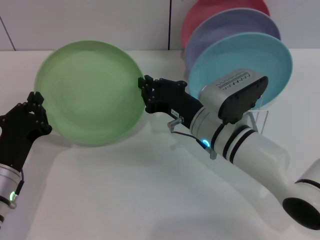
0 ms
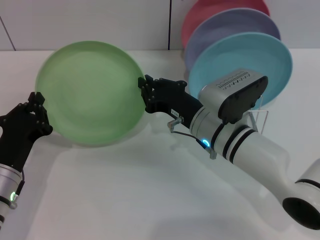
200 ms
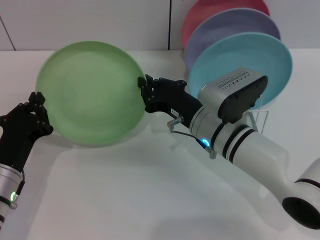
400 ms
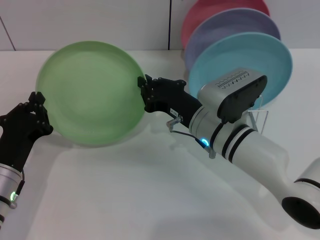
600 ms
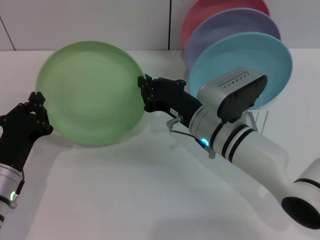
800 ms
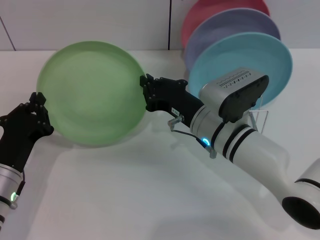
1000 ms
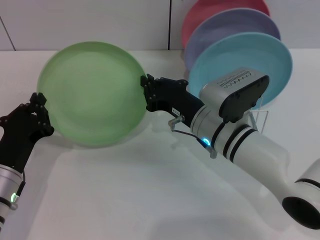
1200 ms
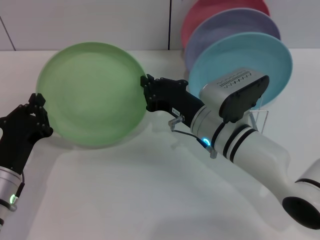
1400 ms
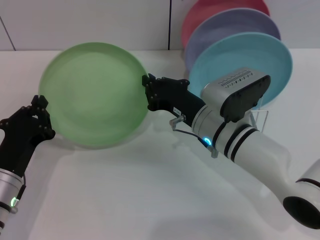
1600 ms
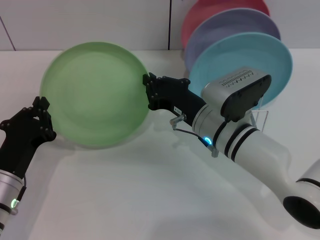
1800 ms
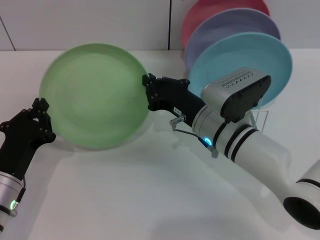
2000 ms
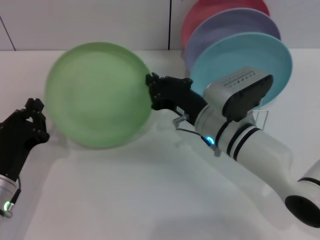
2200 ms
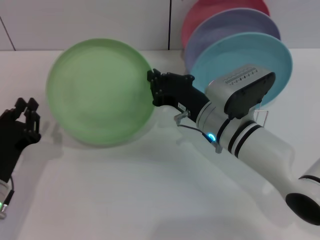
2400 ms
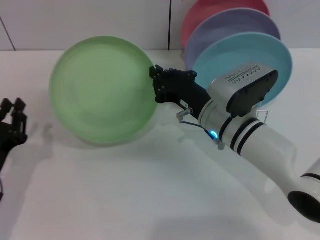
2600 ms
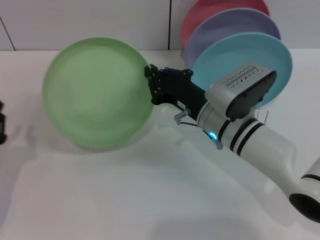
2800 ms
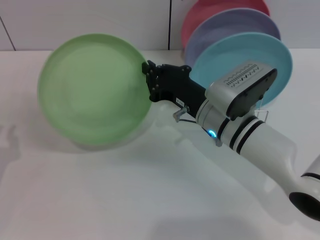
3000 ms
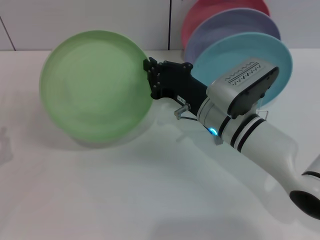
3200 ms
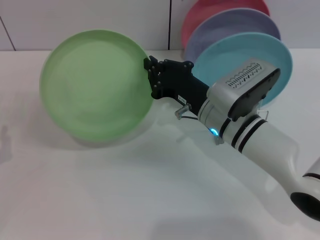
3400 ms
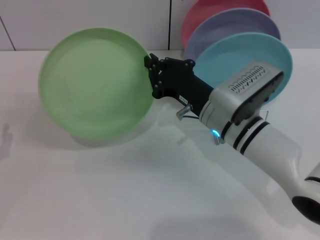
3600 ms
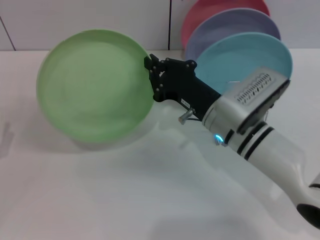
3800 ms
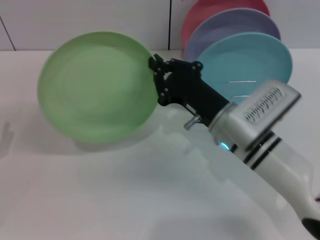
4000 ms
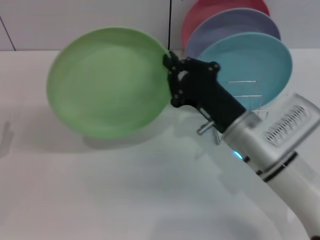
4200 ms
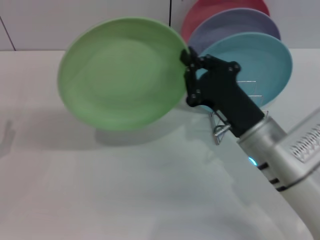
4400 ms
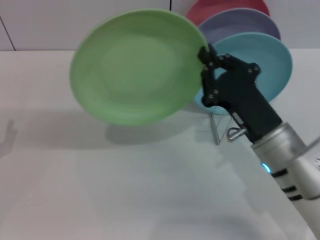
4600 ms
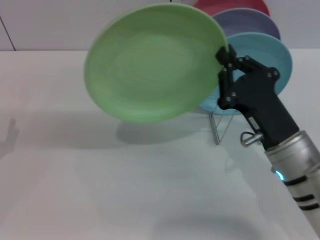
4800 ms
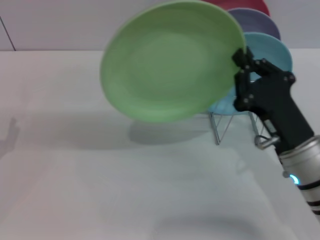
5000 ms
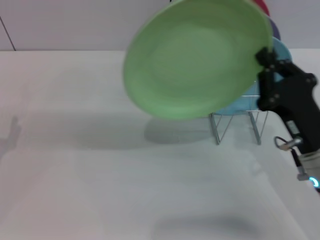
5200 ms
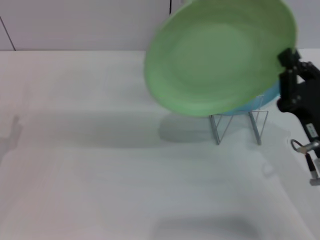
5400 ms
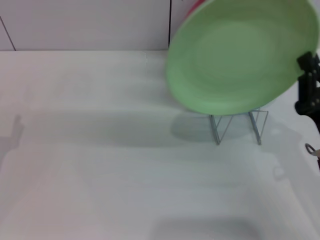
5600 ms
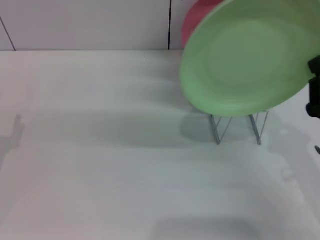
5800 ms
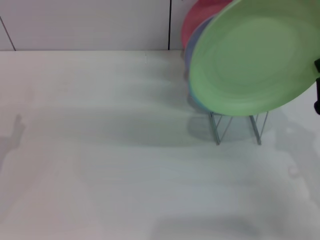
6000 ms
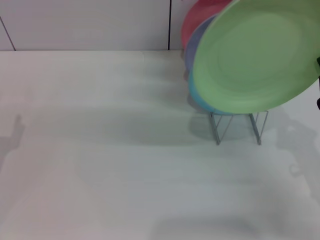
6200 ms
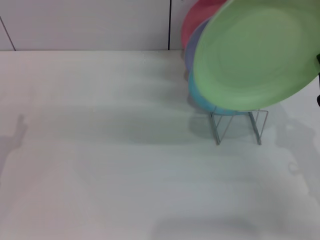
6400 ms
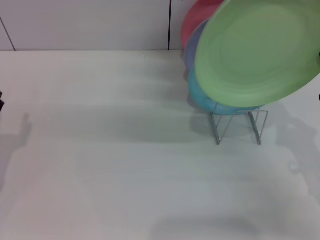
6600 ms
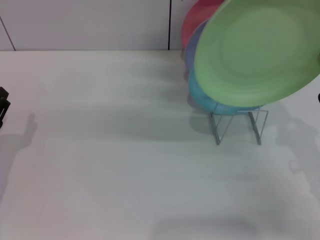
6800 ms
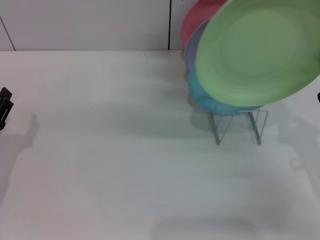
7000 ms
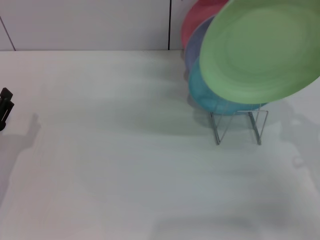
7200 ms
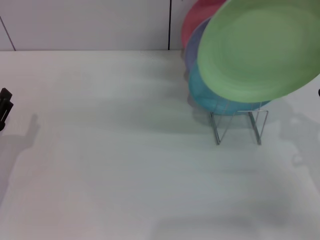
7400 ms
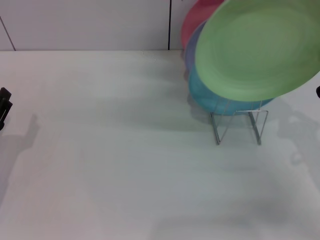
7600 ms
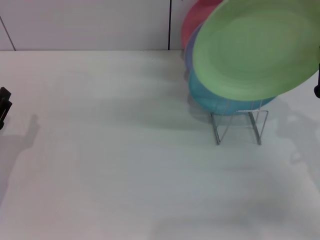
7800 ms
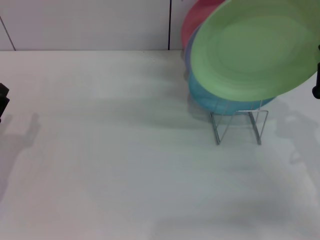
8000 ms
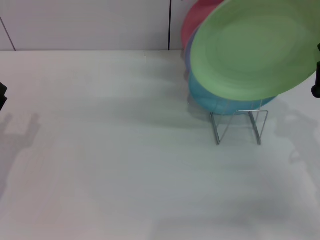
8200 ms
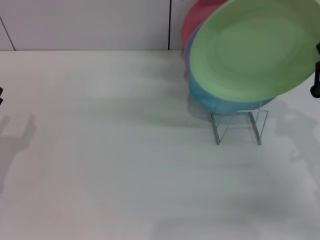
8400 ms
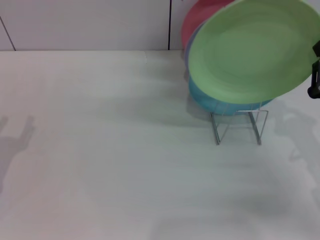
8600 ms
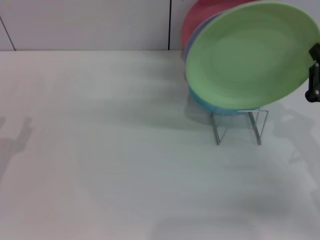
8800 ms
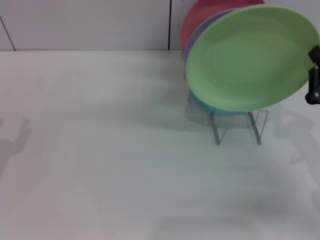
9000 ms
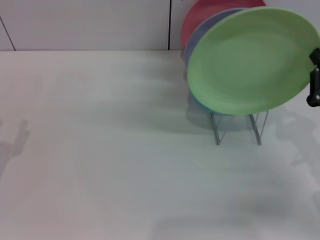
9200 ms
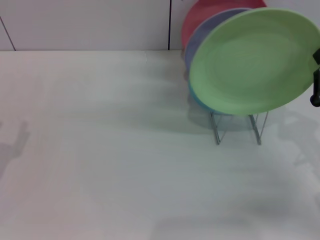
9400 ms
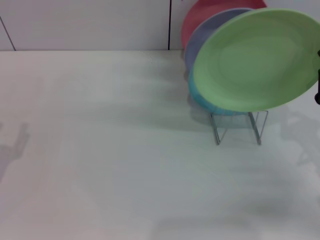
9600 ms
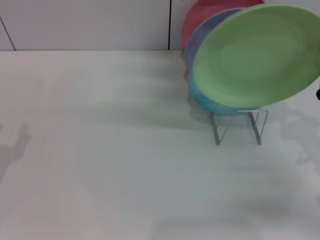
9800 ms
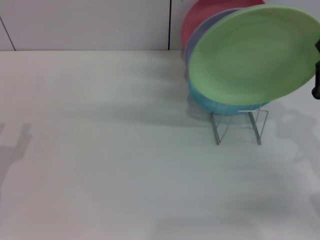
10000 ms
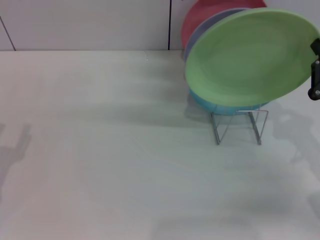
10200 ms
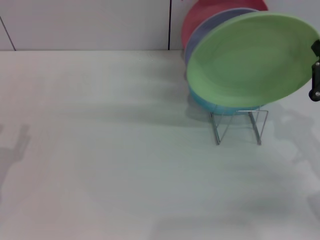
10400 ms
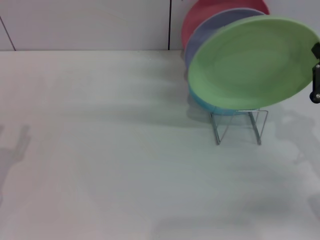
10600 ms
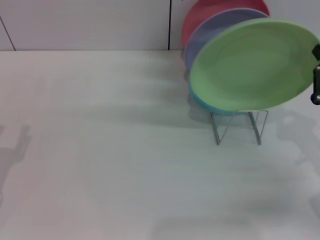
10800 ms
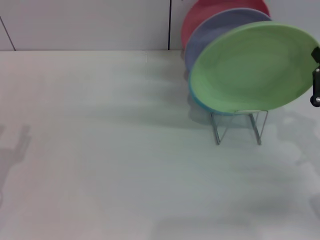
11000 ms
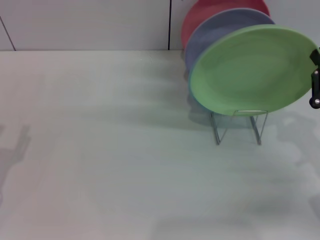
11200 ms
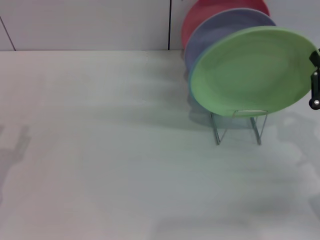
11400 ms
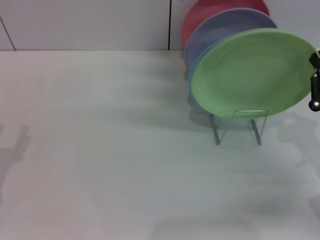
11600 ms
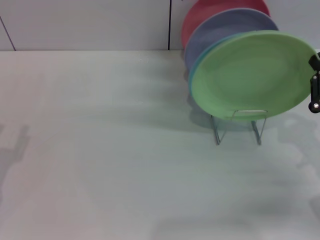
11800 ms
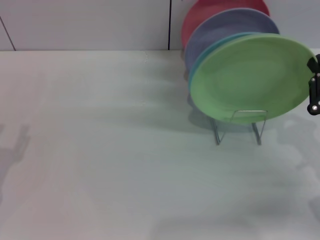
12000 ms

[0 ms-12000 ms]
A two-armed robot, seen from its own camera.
Task of the whole recording: Grip the plate with one hand, pass it to the other, then set it on the shelf.
Step, 0 ms to 2400 ms: Pass the plate from the left gripper to the right gripper.
0 ms to 1600 ms: Both grippers stay put.
1600 ms to 3000 ms: The left gripper travels to the left by some 5 cm.
3000 ms to 4400 ms: The left gripper opens. The right gripper goes roughly 5 cm backward.
4400 ms to 6000 ms: The right gripper travels to the right and backward by some 15 cm.
6000 ms to 7600 ms: The grippers move only a little.
7600 ms to 9000 ms: The grippers move only a little.
9000 ms to 12000 ms: The grippers make only small movements.

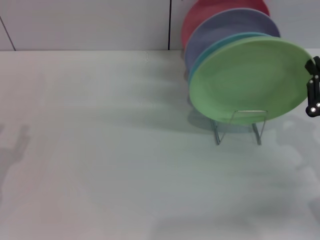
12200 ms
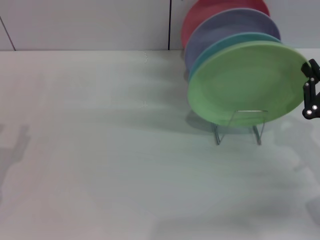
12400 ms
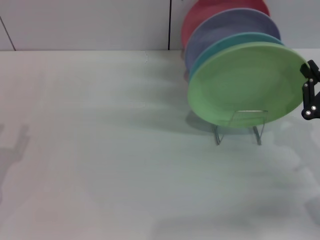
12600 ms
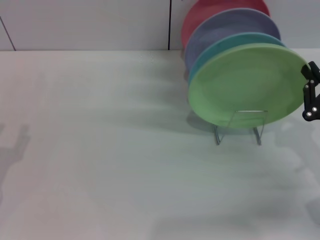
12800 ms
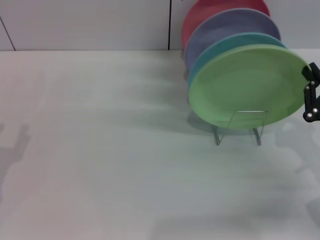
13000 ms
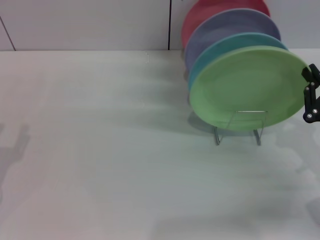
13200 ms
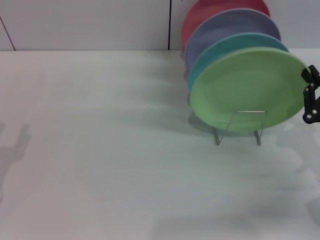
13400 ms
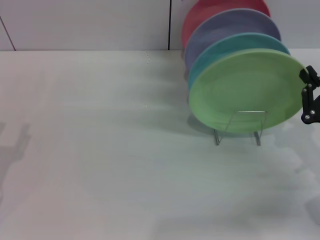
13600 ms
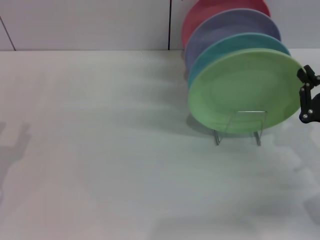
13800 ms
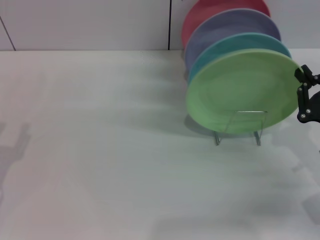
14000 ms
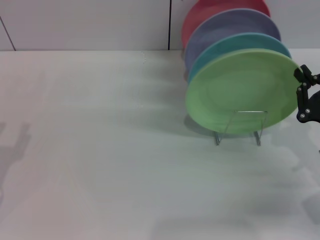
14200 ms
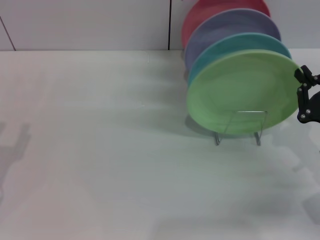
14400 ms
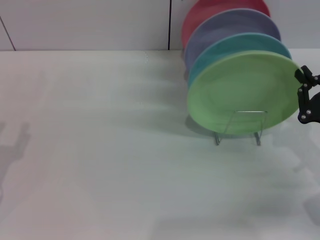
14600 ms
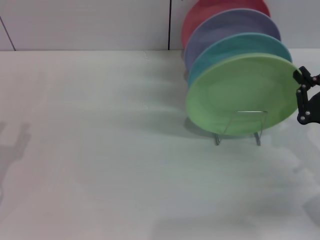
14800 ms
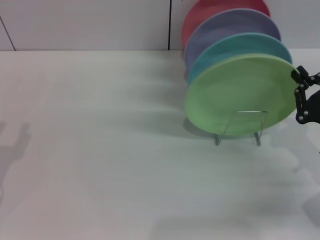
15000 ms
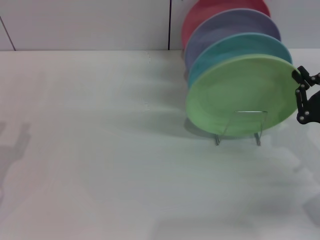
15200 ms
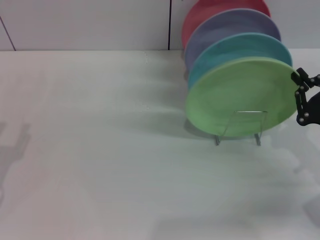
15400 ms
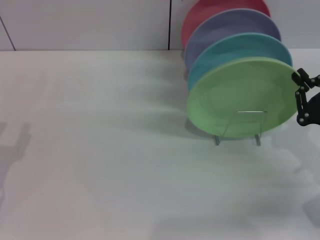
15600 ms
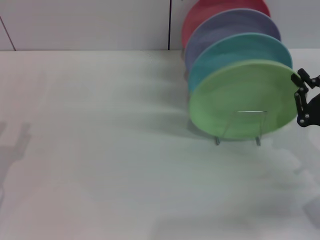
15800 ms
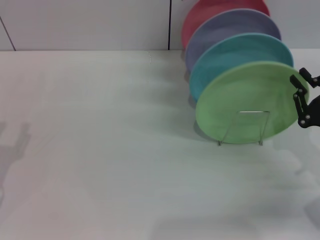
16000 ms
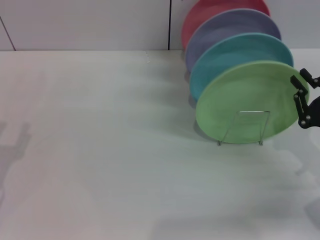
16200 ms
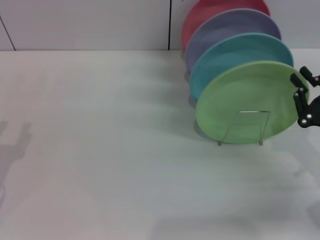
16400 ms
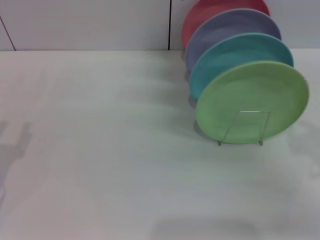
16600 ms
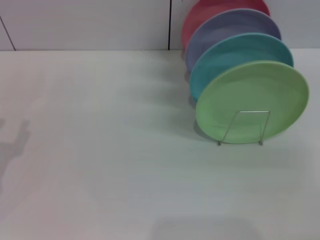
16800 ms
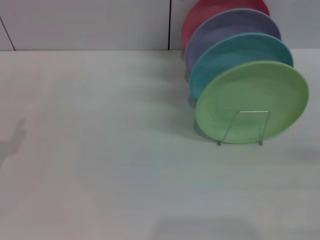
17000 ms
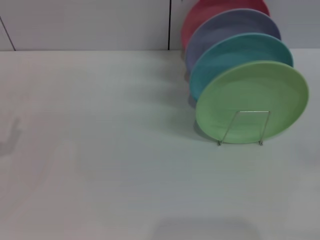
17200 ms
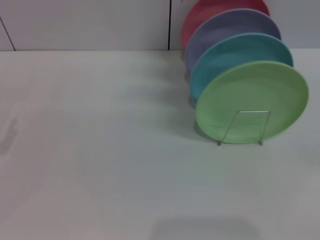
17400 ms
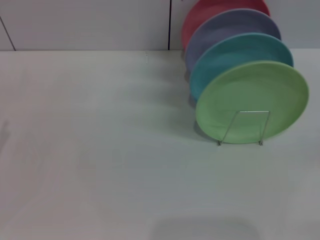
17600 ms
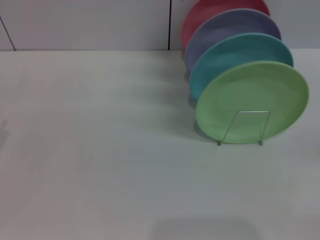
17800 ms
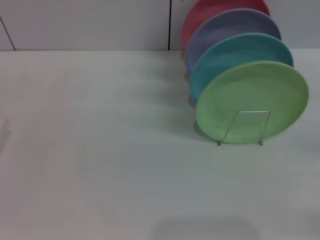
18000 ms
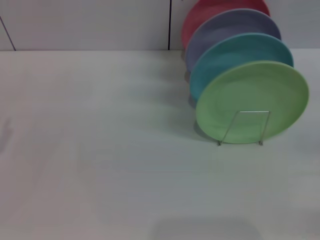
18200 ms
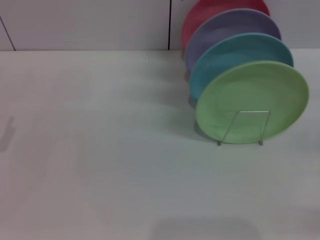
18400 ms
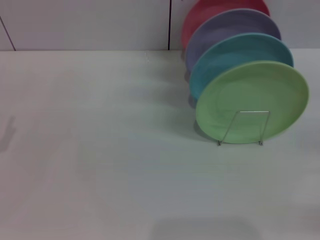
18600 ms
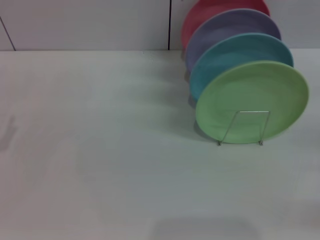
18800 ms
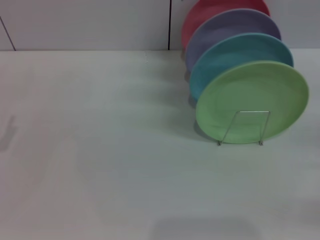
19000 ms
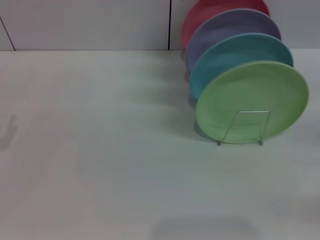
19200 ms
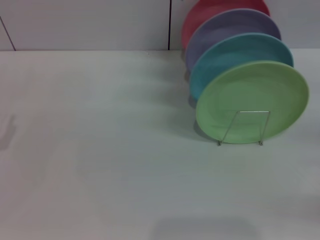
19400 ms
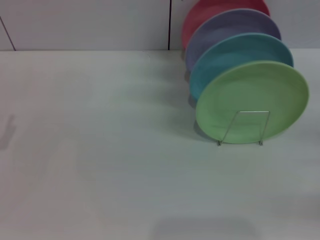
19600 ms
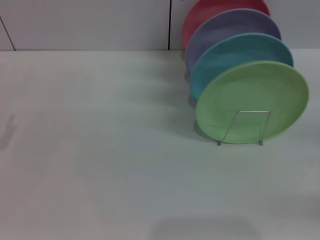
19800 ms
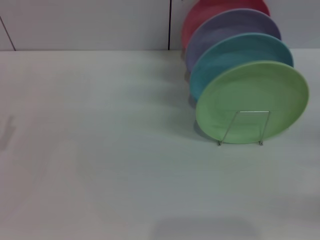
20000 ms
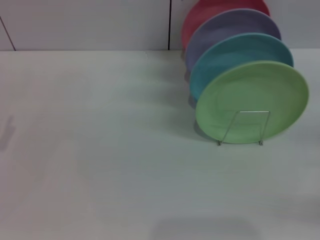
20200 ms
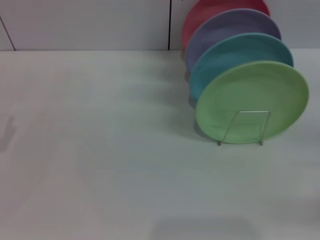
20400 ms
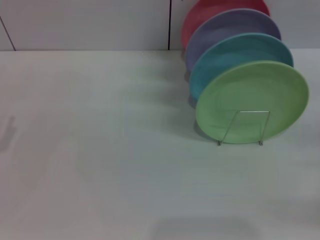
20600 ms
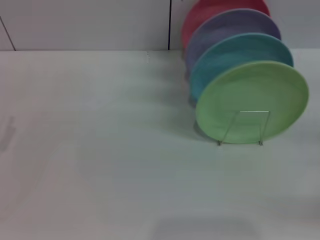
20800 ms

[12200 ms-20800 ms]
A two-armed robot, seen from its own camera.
Task of the whole recording: Grip the plate with one hand, pass it to the other, then set it on the shelf.
Step, 12200 ms to 15000 ms: Place the plate on the shelf with the right gripper.
12200 ms to 13600 ms: The two grippers keep their place.
13600 ms to 15000 ms: The grippers move only a little.
19400 ms to 20800 ms: Neither gripper changes place.
